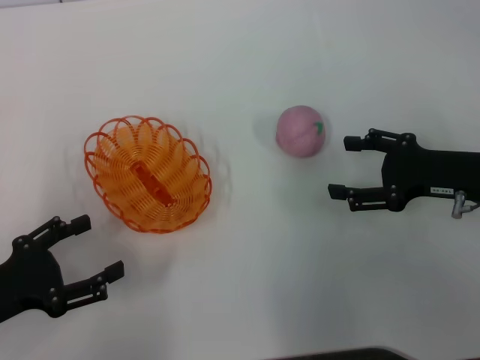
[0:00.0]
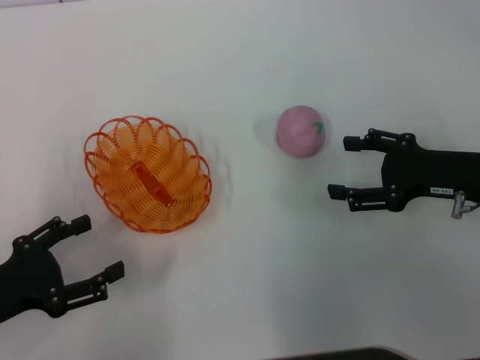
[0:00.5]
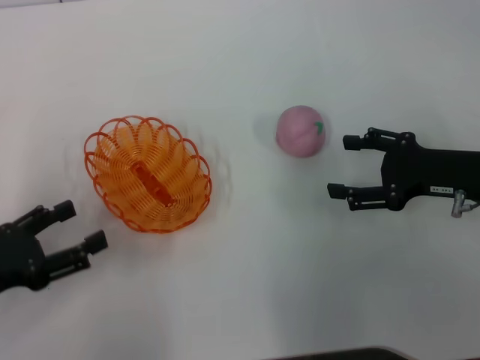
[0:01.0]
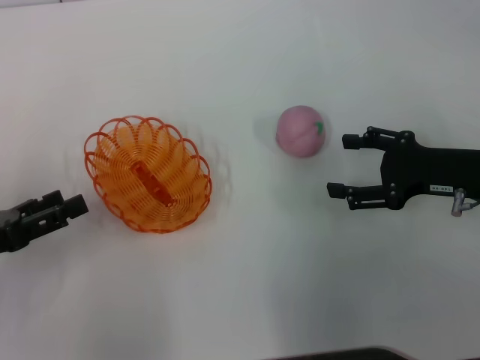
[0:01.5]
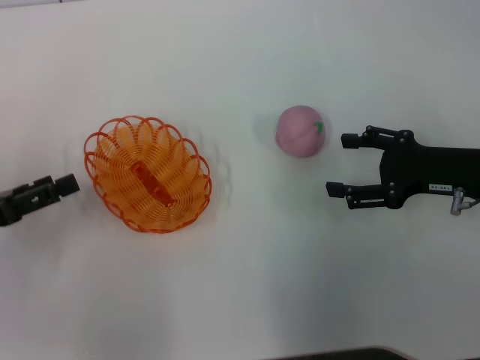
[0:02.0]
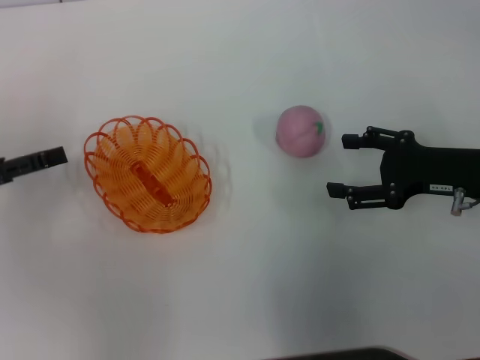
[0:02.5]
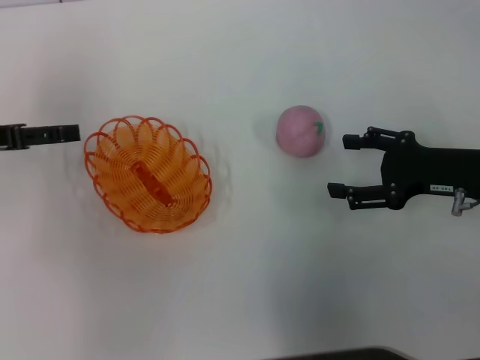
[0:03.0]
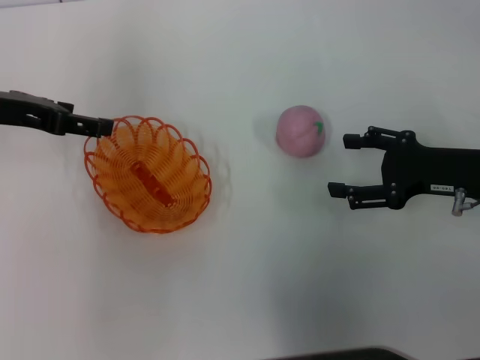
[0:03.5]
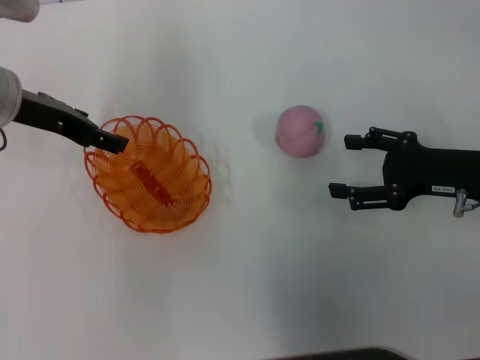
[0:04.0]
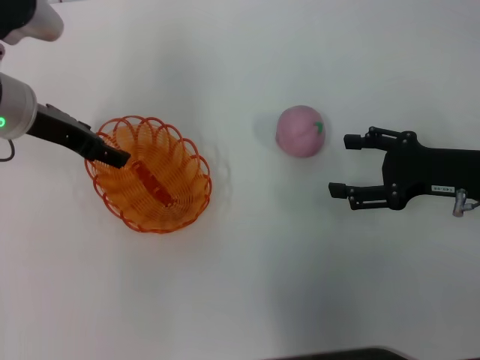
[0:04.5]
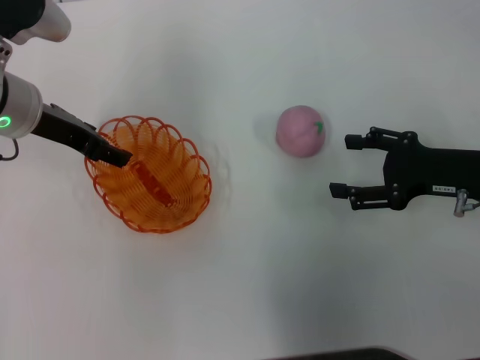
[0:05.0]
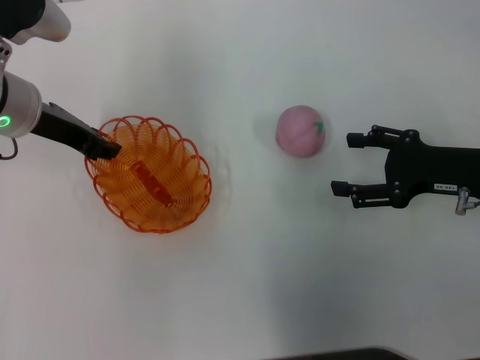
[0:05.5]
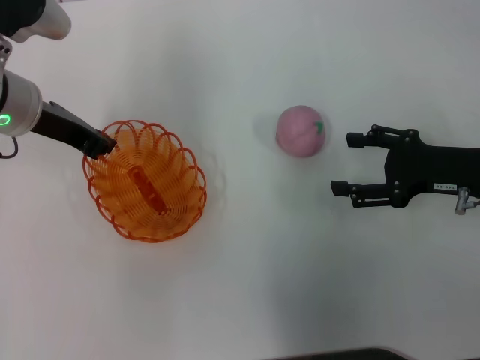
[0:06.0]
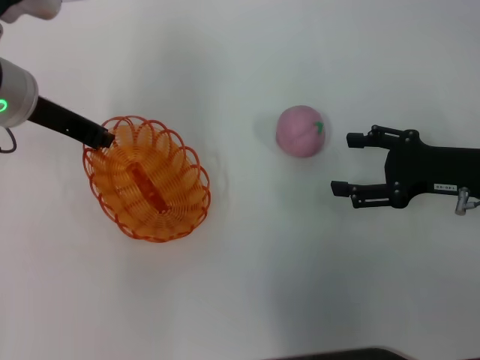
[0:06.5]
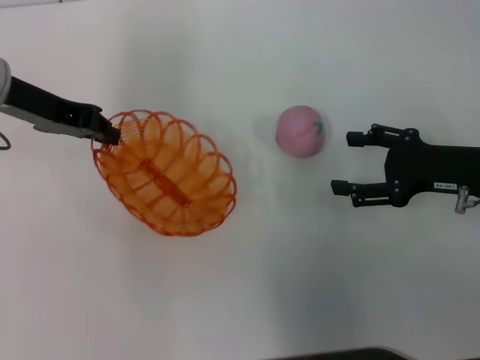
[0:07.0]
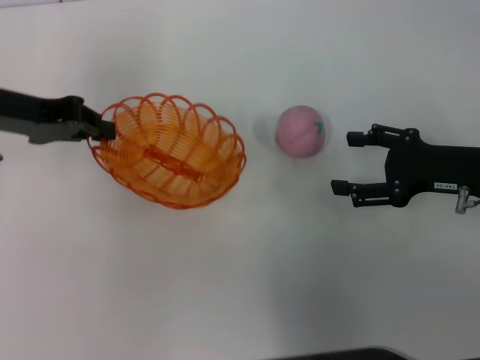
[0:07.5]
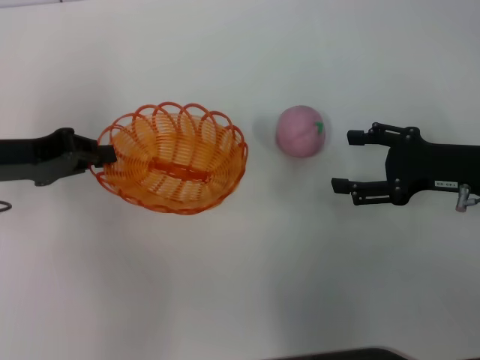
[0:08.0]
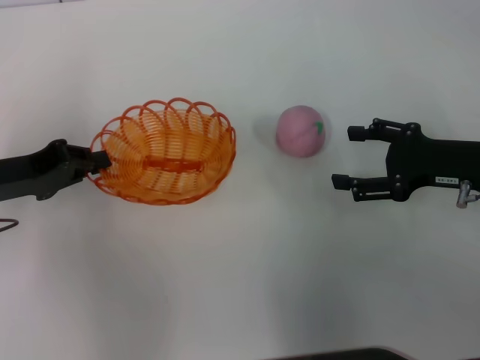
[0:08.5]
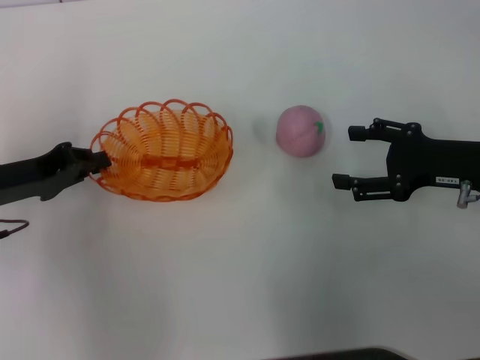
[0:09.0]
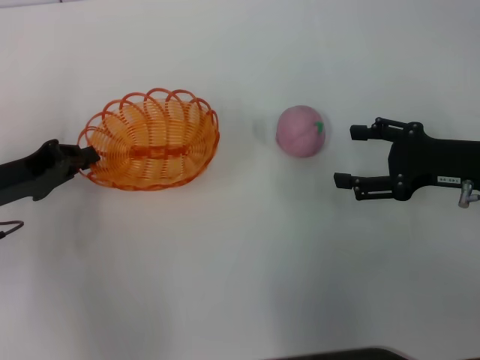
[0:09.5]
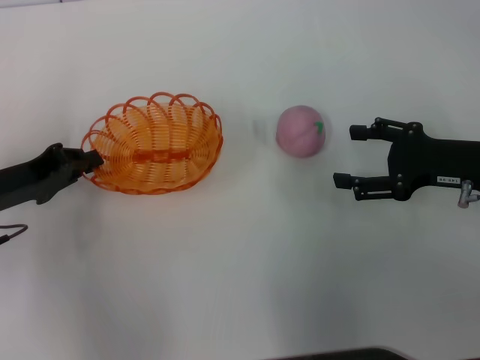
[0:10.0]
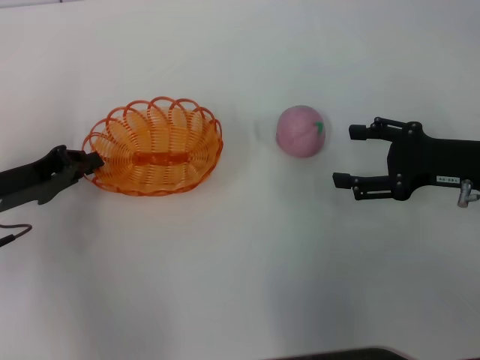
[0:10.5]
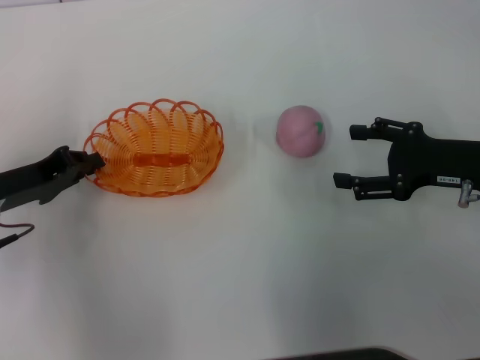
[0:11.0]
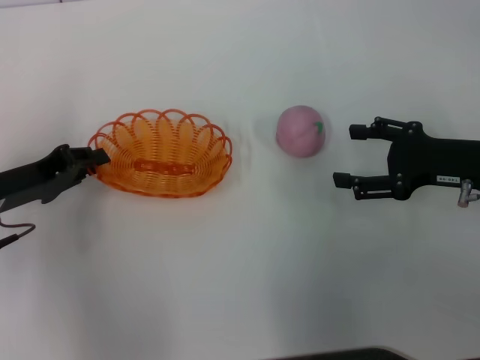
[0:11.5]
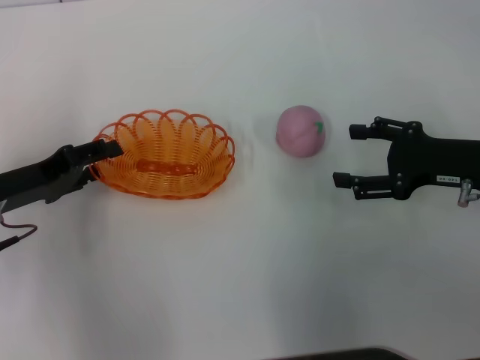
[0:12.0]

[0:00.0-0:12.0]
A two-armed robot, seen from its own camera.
Step, 0:00.0 to 0:06.5: Pick up the basket with the left gripper.
0:00.0 to 0:02.0: The left gripper goes about 5 cm forward.
0:02.0 to 0:04.0: The left gripper heads forward, to the right and upward, covering approximately 20 cm.
0:04.0 to 0:06.0: The left gripper closes its fingers.
0:06.0 to 0:08.0: The left gripper heads to the left and backward, covering approximately 10 cm.
0:08.0 to 0:10.0: The left gripper goes about 5 cm downward.
0:10.0 to 0:12.0: The left gripper opens its fingers.

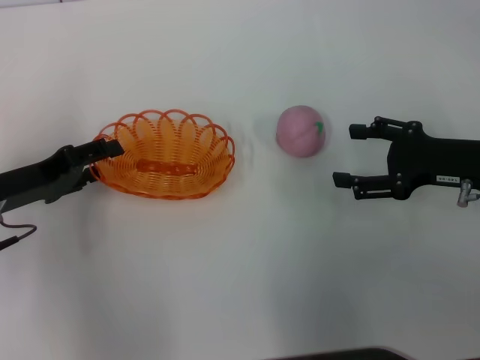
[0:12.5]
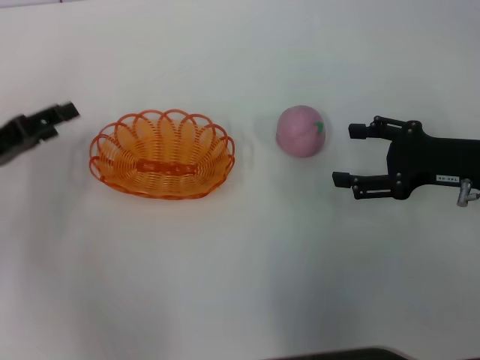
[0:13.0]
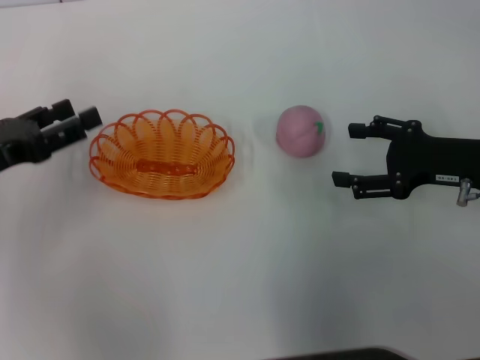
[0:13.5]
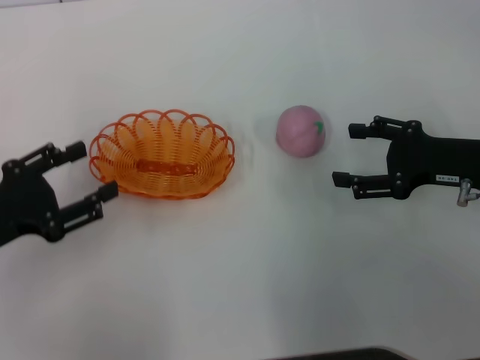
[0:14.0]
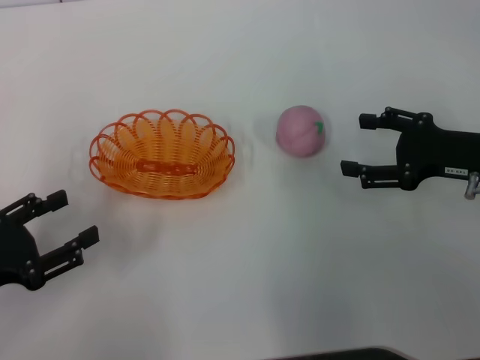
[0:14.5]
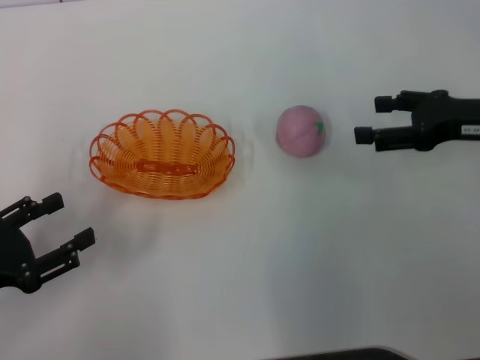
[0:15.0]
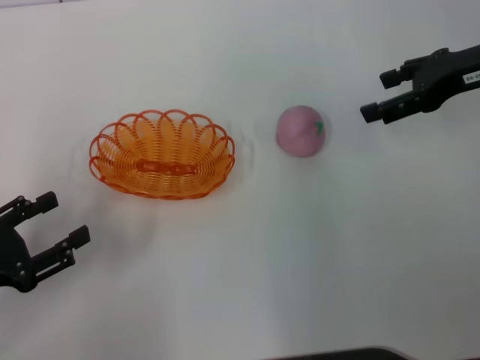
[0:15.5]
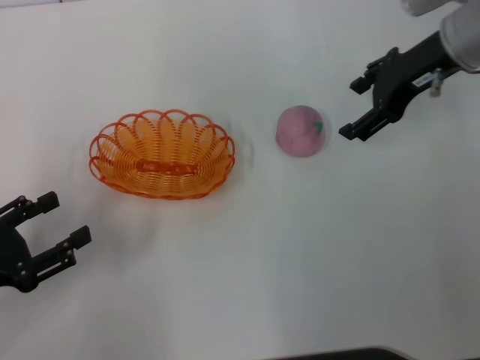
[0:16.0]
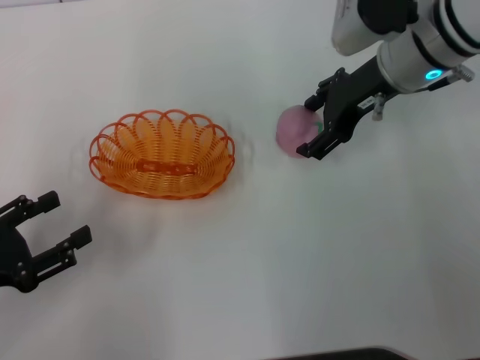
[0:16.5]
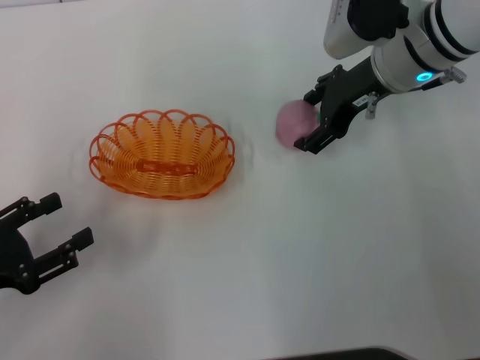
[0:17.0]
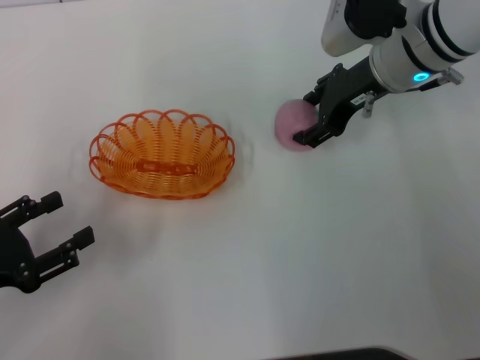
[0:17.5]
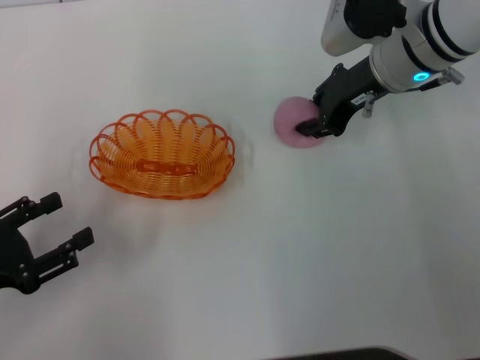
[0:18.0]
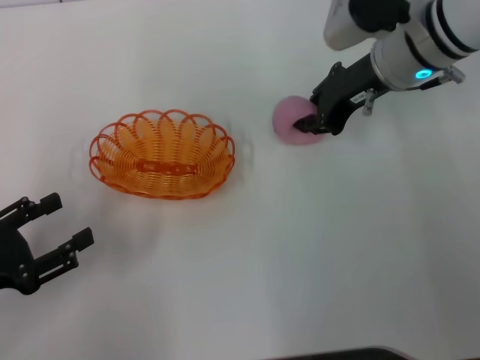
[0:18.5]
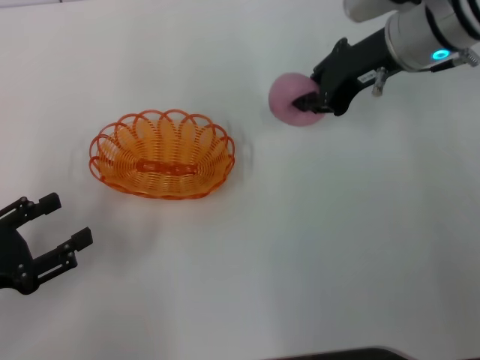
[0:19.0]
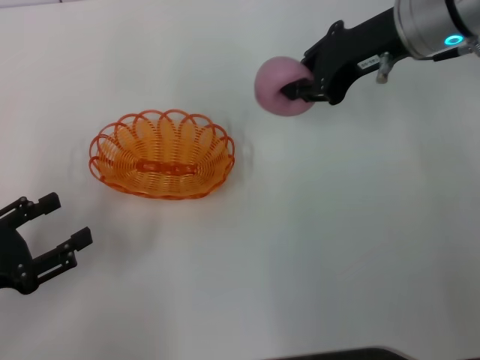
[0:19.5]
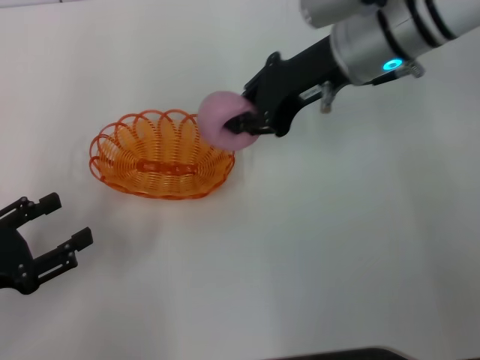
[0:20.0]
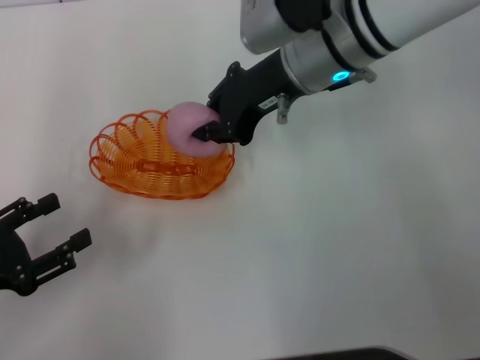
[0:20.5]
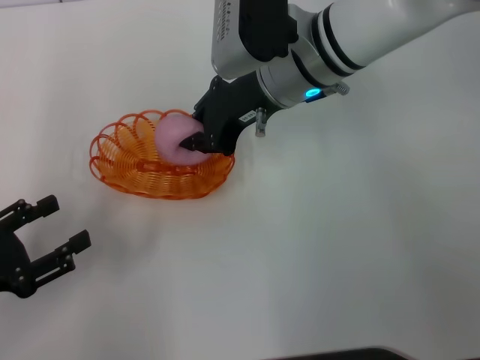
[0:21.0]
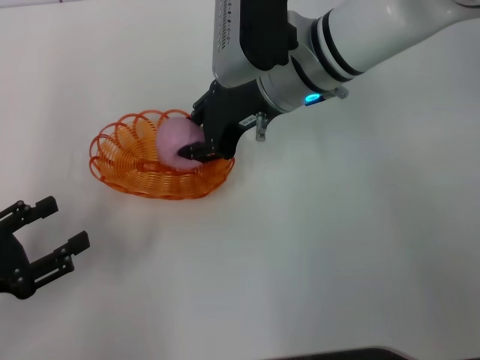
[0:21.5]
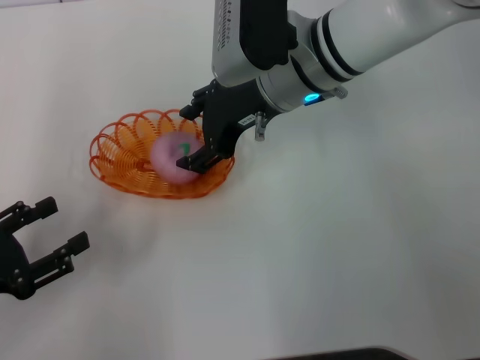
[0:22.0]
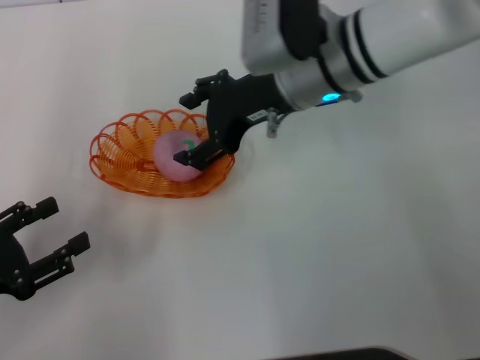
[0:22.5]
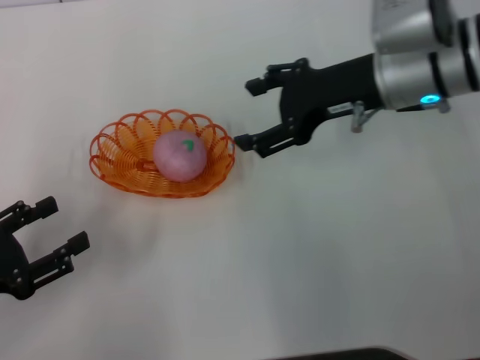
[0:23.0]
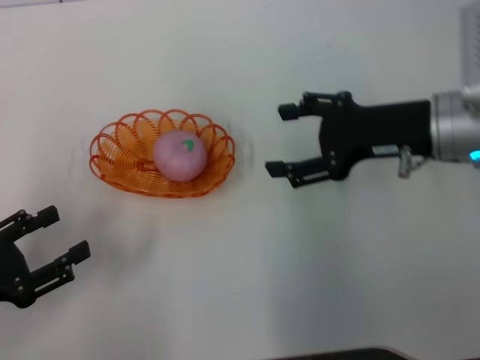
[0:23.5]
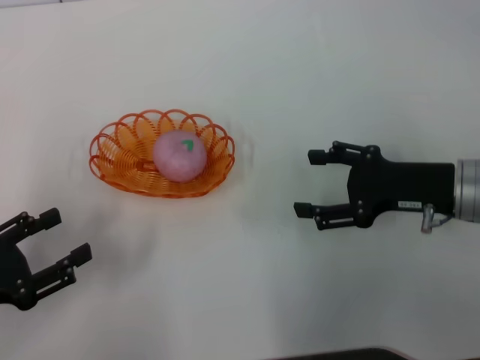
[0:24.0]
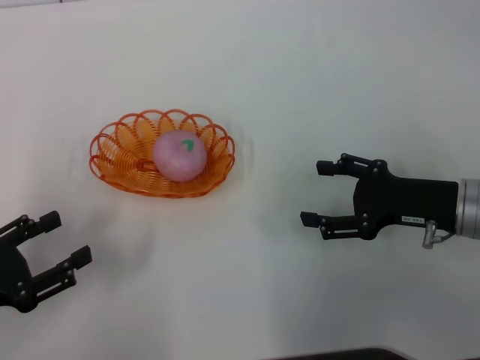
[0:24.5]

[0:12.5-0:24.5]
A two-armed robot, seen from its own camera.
Step, 0:13.0 to 0:19.0: Pick up the peach with the right gripper.
Step, 0:19.5 to 0:22.0: Place the peach into the basket with the right gripper.
0:12.5 to 0:14.5: The left gripper travels backward by roughly 10 cm.
0:14.5 to 0:16.5: The right gripper goes some 20 cm to the left, forward and upward.
0:16.5 to 0:18.5: The right gripper closes.
0:18.5 to 0:20.5: The right gripper goes some 10 cm to the left.
0:20.5 to 0:22.5: The right gripper opens its fingers.
0:22.5 to 0:24.5: The right gripper travels to the right, backward and downward by roughly 25 cm.
